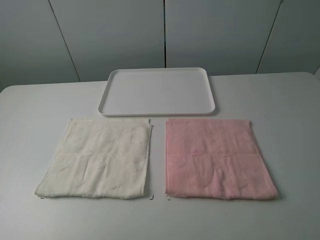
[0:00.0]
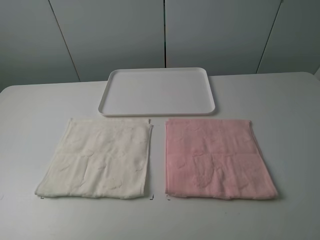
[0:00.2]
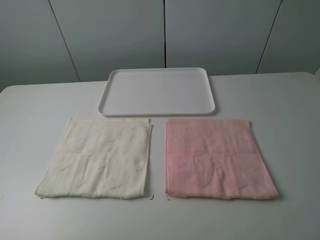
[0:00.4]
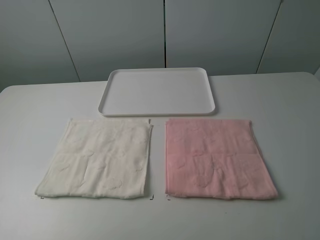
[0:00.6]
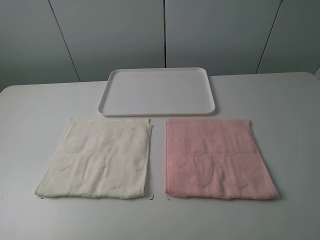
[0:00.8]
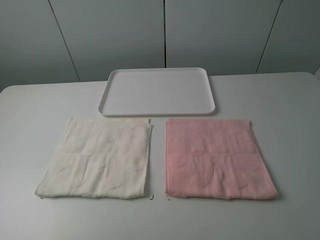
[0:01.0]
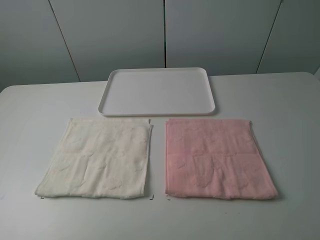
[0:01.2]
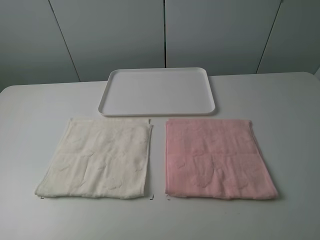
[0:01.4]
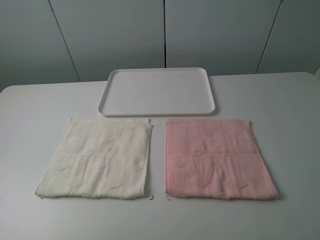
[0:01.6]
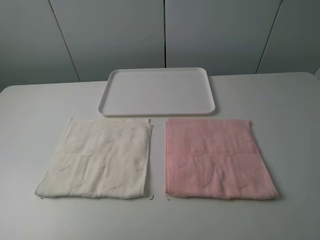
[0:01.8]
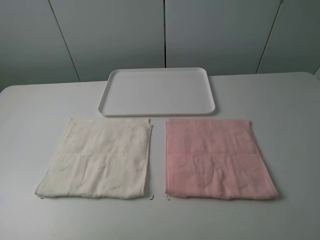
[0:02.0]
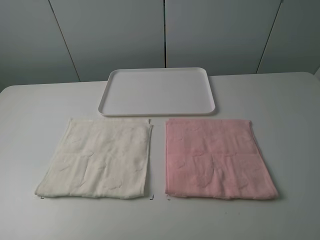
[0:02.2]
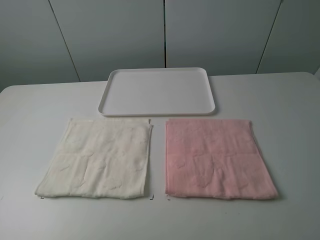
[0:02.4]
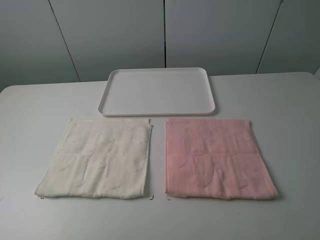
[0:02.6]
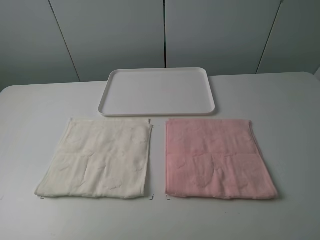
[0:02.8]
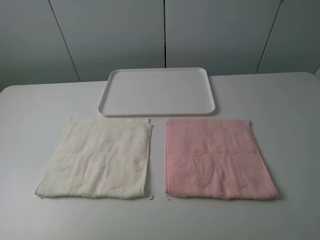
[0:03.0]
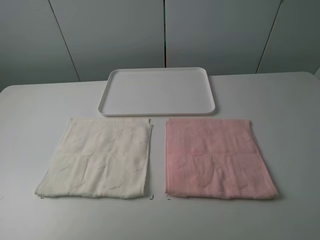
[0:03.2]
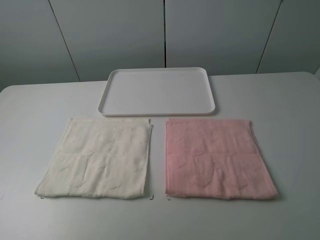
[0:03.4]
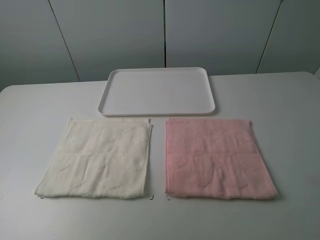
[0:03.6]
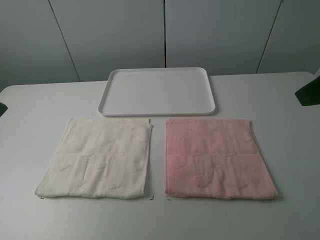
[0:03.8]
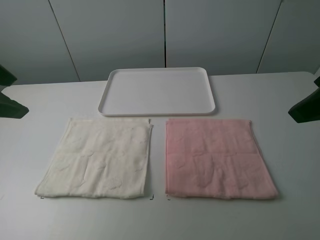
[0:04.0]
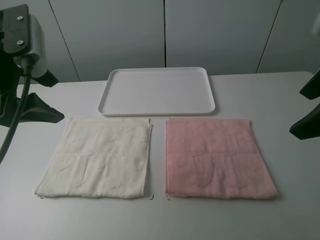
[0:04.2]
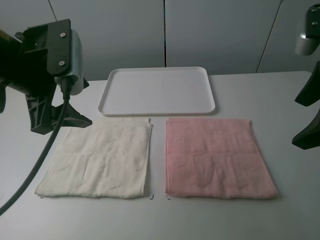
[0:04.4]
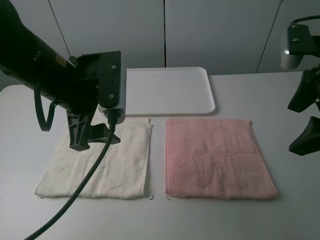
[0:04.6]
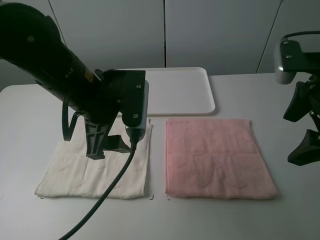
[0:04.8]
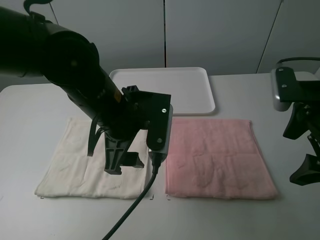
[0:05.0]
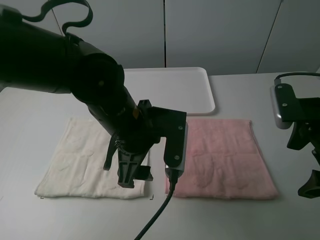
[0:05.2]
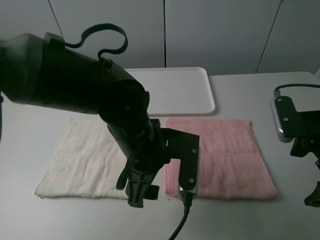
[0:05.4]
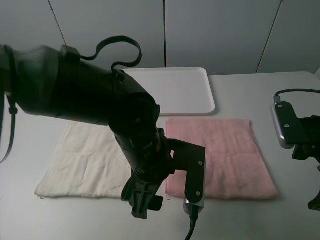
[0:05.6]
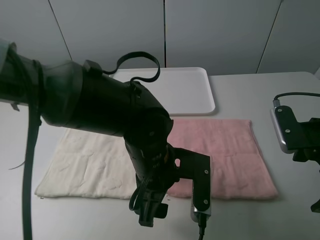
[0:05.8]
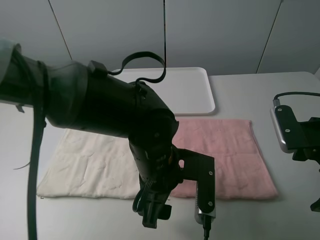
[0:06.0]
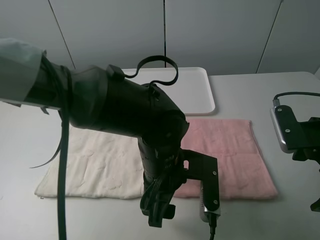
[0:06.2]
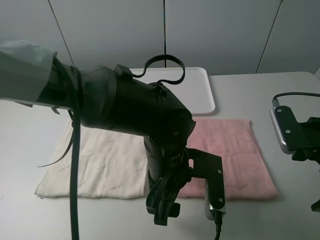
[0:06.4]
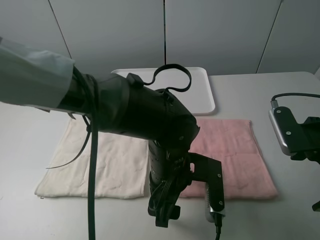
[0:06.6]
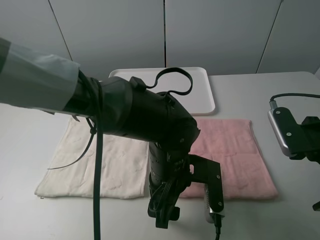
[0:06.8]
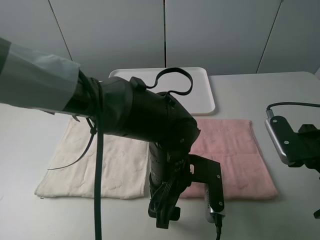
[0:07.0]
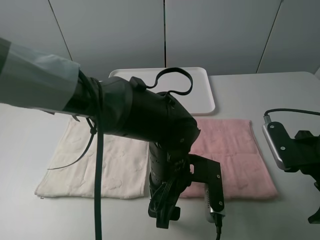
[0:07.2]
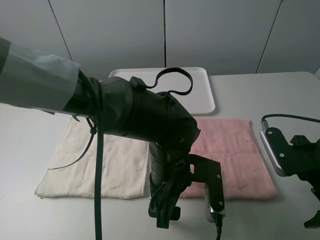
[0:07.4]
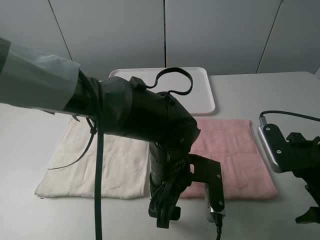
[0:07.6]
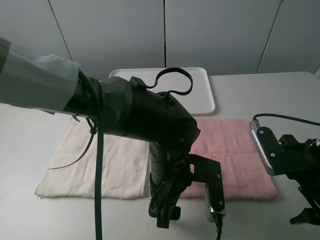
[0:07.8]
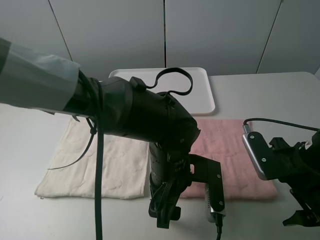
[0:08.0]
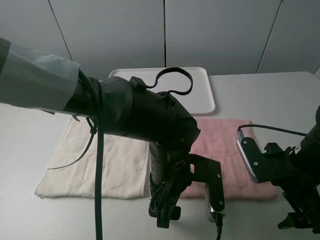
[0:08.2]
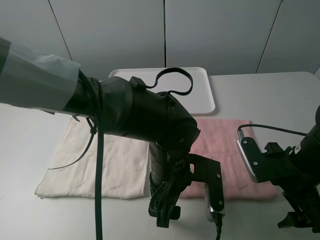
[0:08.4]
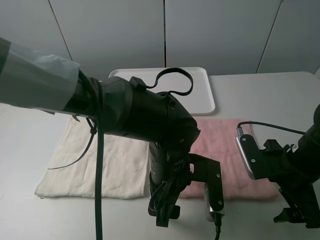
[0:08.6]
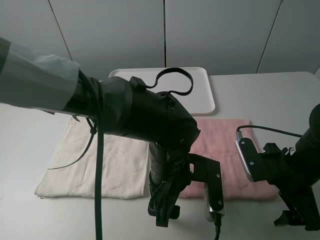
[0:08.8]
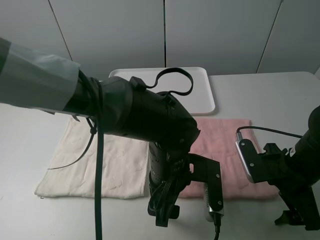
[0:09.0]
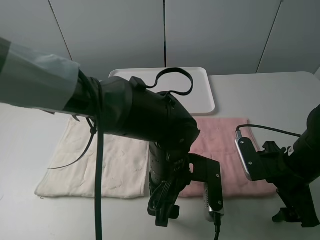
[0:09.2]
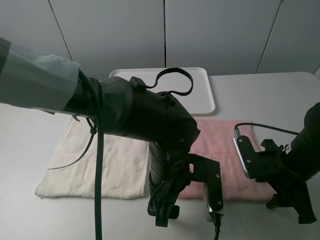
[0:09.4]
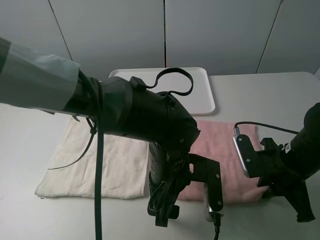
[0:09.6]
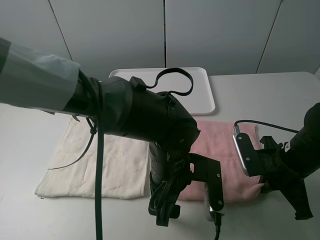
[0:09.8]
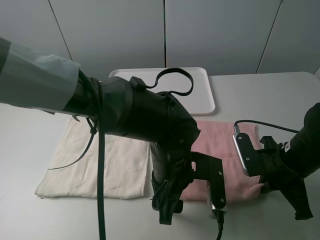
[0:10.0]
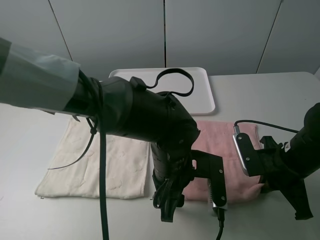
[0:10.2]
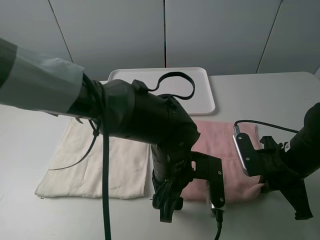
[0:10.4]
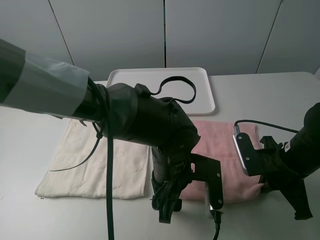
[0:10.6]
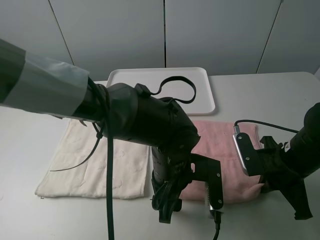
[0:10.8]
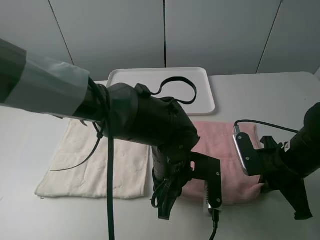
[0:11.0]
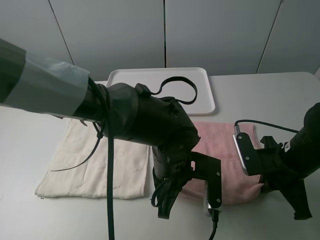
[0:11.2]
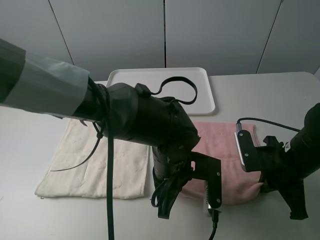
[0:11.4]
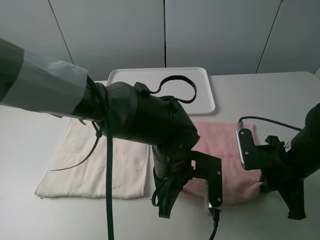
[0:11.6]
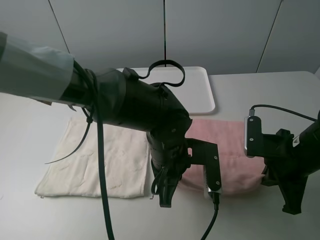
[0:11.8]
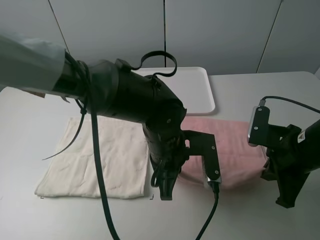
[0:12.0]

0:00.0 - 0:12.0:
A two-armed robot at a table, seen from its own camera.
Task of the whole recording: fold one of the towels by two grippers and place it on the tray,then fold another towel by two grippers and place it on the folded towel.
Step, 0:00.0 - 0:11.2: Grasp the pink towel with the left gripper.
0:00.0 - 0:01.6: Both grippers stay about where they are.
0:03.0 - 0:04.4: The left gripper heads forward and to the right, covering roughly 25 cm. The right gripper shifts roughly 20 cm forward.
0:04.4 - 0:06.0: The left gripper shifts about 25 cm to the right and downward; the right gripper moves downward, roughly 10 cm.
0:07.6 - 0:09.0: The right gripper ends up roughly 5 cm from where it was.
0:09.0 - 0:10.4: The right gripper closes its fingers.
0:10.4 - 0:12.0: The left gripper closes up.

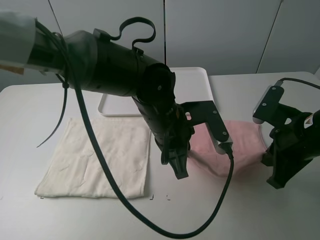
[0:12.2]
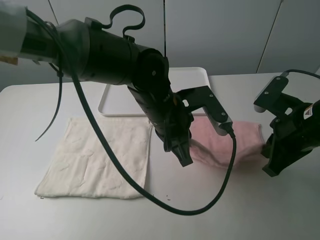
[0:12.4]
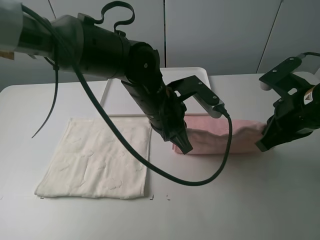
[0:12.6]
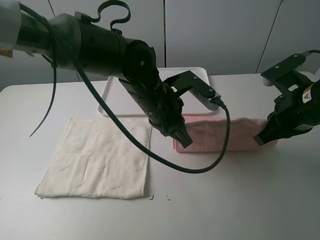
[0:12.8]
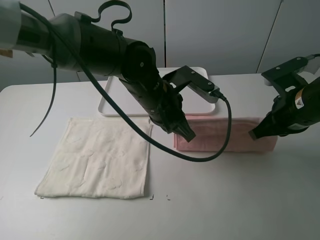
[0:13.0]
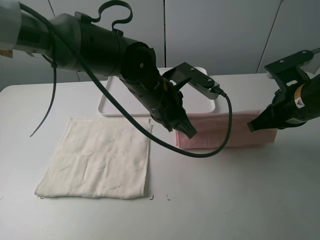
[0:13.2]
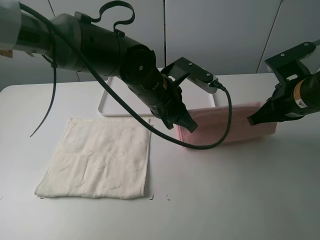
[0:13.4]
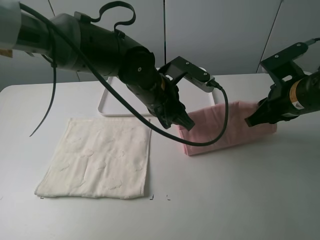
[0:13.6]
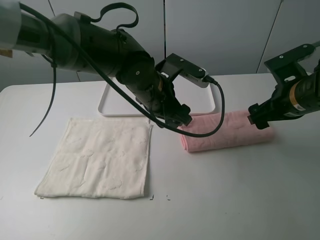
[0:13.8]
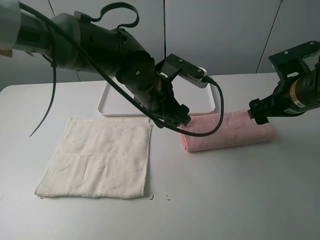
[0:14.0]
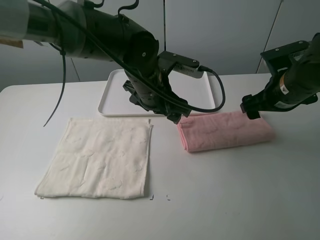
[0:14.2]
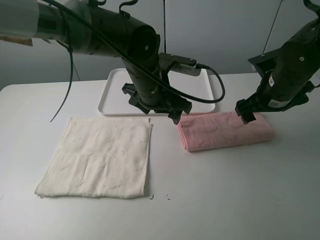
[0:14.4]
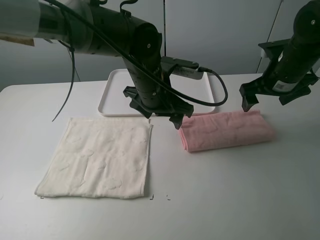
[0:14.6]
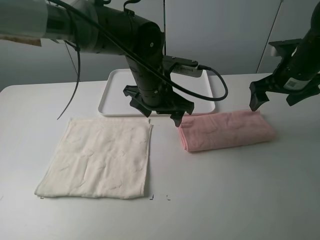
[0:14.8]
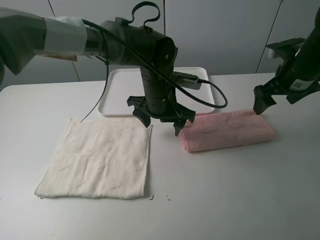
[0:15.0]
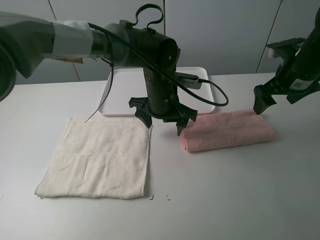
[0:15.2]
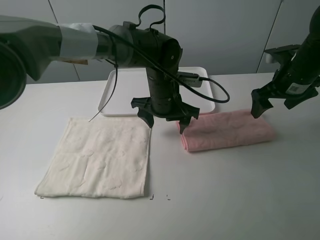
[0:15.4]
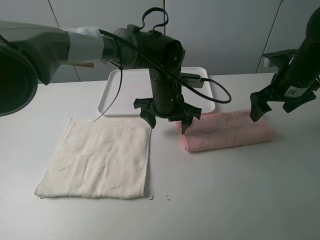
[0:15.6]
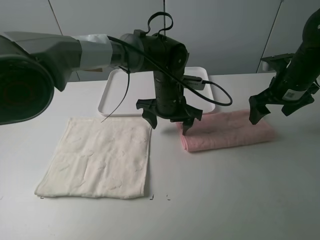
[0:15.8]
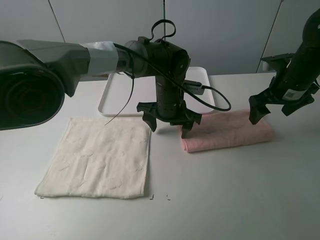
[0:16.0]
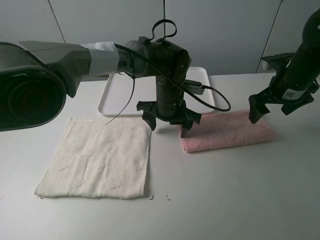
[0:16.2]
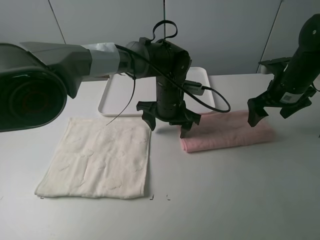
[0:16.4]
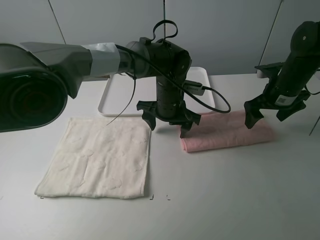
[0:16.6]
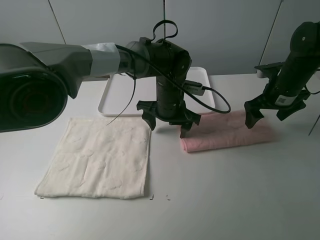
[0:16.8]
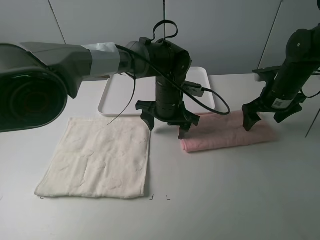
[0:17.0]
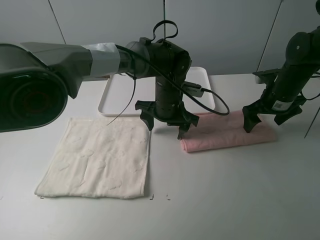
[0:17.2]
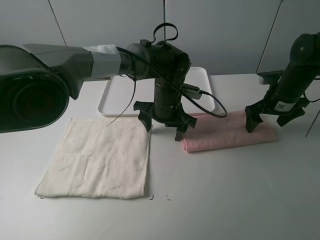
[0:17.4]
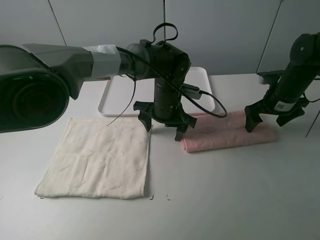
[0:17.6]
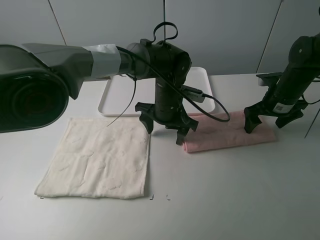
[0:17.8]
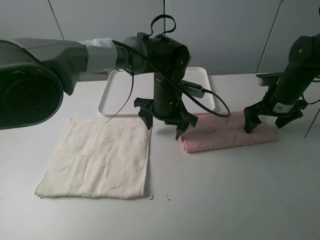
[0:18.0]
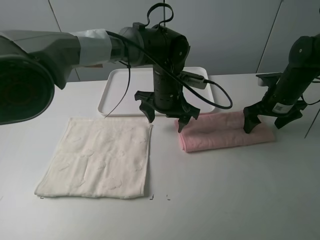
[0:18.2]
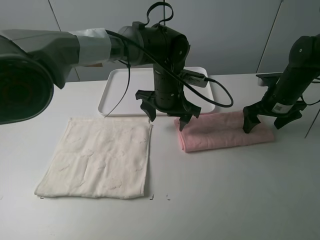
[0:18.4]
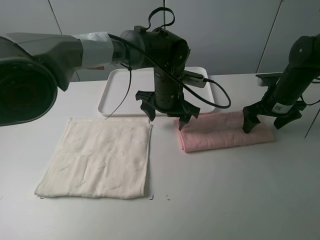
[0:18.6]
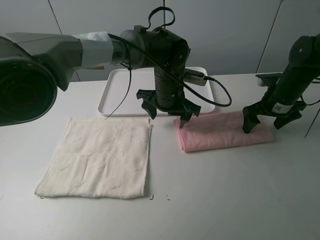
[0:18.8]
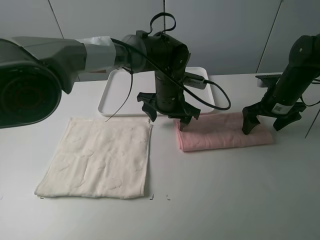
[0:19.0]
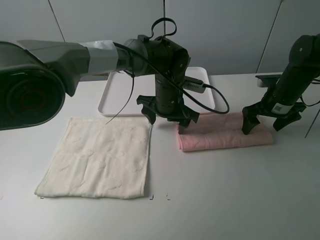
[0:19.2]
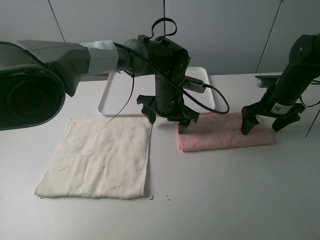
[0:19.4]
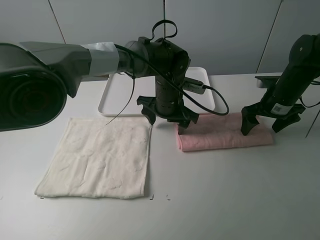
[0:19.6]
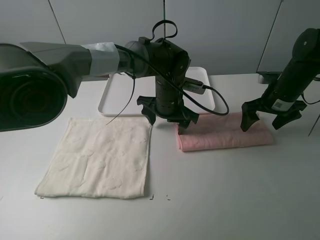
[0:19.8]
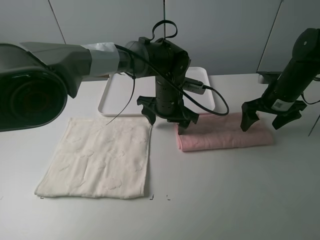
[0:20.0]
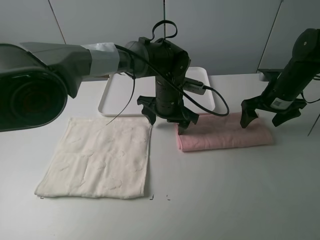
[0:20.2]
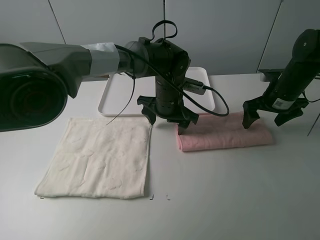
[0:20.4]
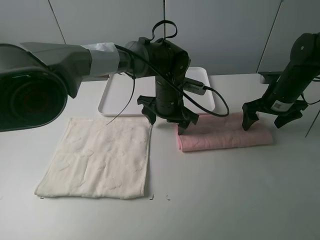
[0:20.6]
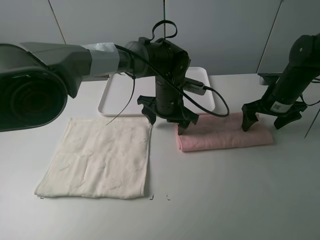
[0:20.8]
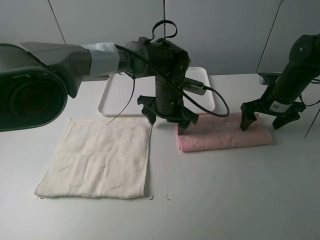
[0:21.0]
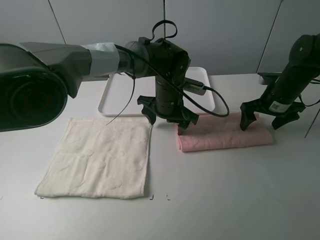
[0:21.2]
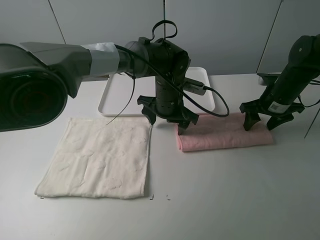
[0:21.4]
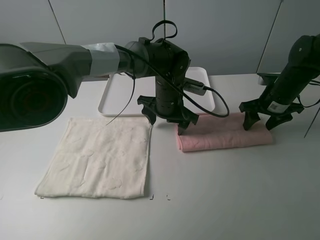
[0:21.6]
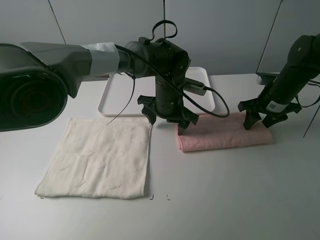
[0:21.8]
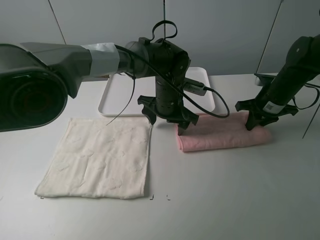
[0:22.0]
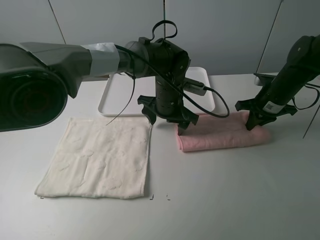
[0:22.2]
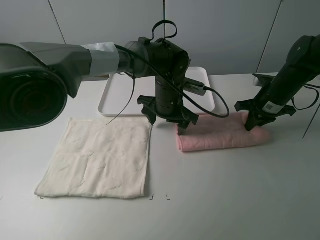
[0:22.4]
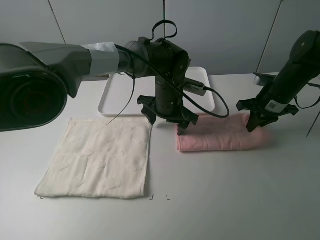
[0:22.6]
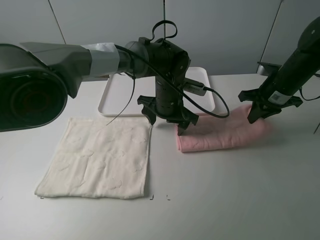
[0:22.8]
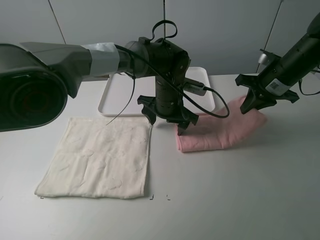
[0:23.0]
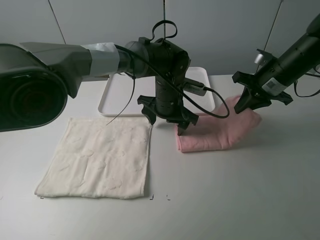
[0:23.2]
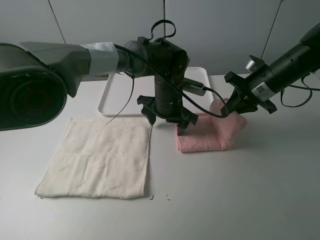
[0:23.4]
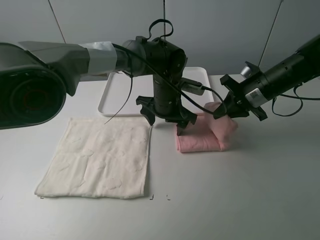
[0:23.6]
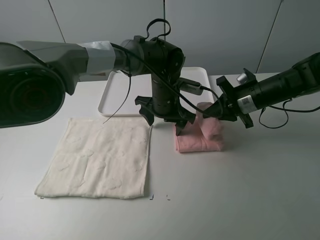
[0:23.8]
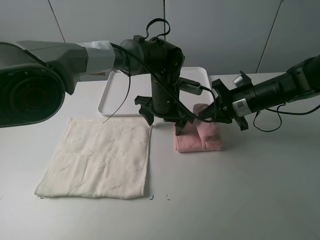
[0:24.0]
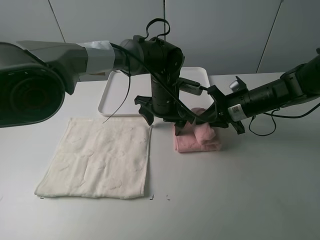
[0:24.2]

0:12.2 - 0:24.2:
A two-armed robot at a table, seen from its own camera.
Task of the whole recording: fold one of the towels by two grippers and place it on the tray,then fold another towel by two grippers and place it on the folded towel.
Step, 0:12.2 - 0:14.0: Fold the pink towel upwards with the left gripper.
Step, 0:14.4 - 0:16.2: Press the pink towel with the left gripper.
Step, 0:16.4 - 0:22.2: Grasp the pink towel with the right gripper.
0:12.2 - 0:13.8: Both grippers move forward, about 5 cm. The left gripper opens up. The right gripper opens its fingers.
0:13.8 - 0:15.2: The right gripper goes about 10 cm forward, while the left gripper shifts by roughly 5 cm.
0:15.2 - 0:16.6: The right gripper shifts about 5 cm downward.
0:16.6 - 0:19.8: The grippers move only a little.
0:19.8 - 0:21.2: Both grippers stay put.
0:21.2 - 0:22.6: The right gripper closes its fingers.
0:22.6 - 0:24.2: The right gripper shifts some 5 cm to the left.
